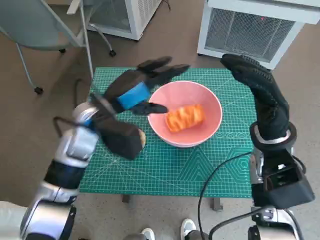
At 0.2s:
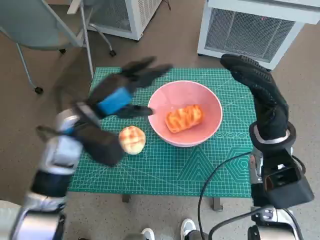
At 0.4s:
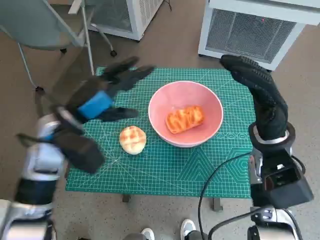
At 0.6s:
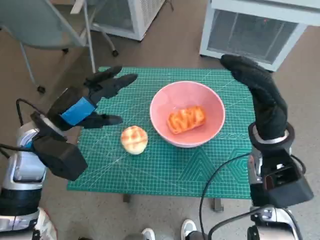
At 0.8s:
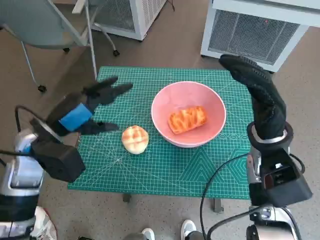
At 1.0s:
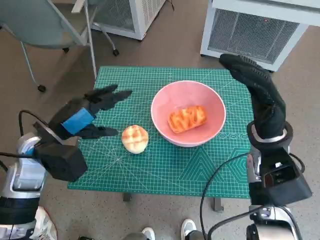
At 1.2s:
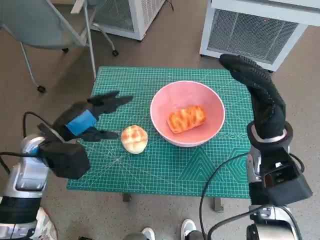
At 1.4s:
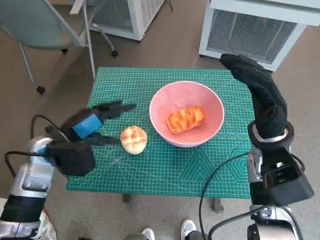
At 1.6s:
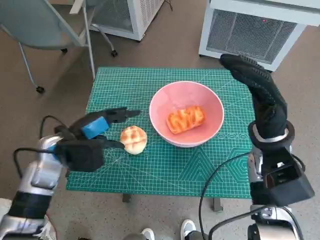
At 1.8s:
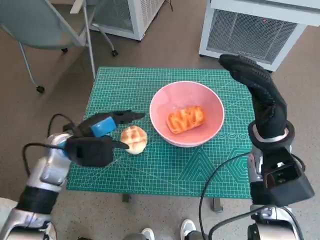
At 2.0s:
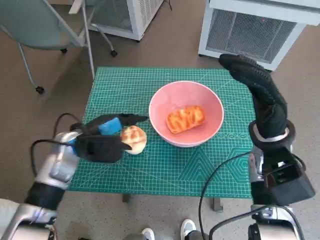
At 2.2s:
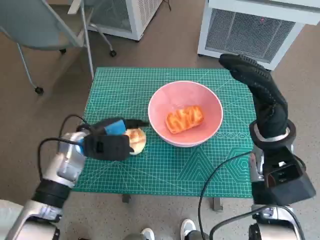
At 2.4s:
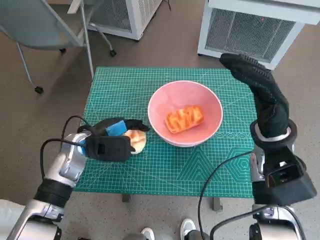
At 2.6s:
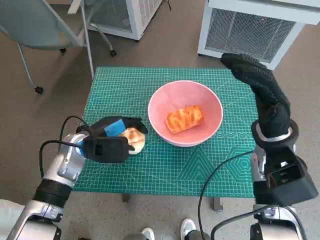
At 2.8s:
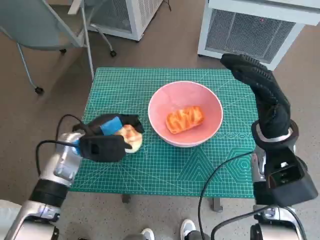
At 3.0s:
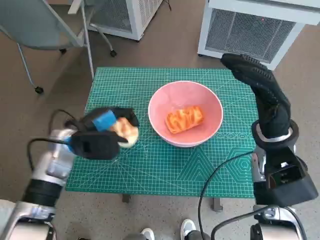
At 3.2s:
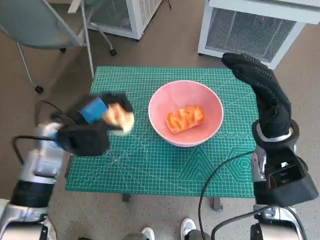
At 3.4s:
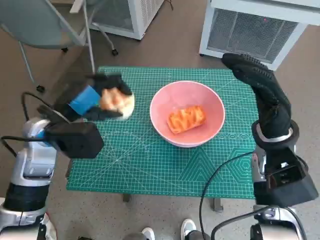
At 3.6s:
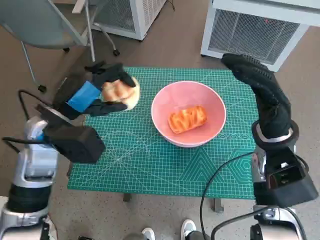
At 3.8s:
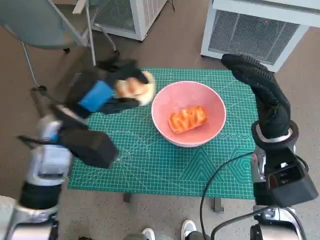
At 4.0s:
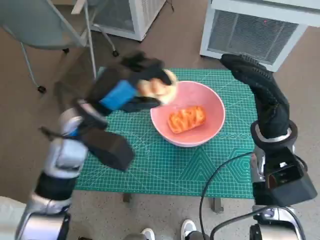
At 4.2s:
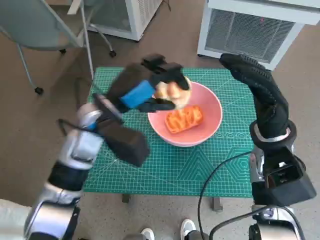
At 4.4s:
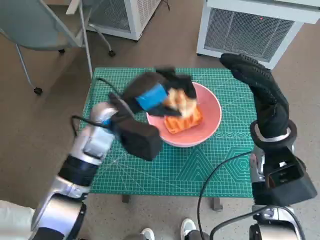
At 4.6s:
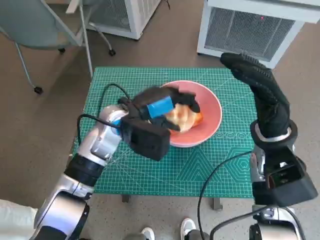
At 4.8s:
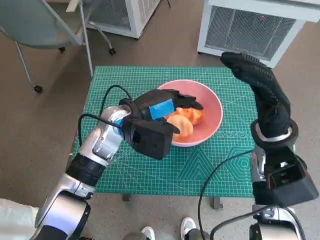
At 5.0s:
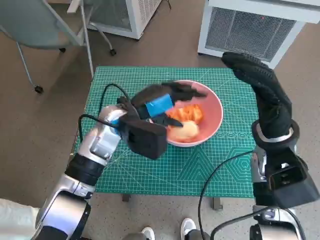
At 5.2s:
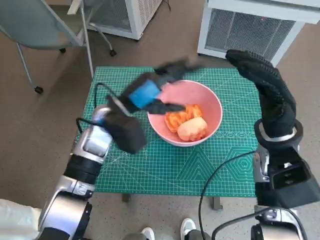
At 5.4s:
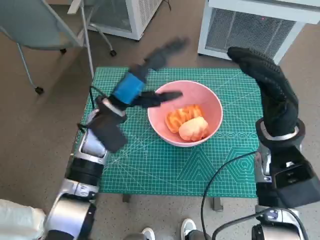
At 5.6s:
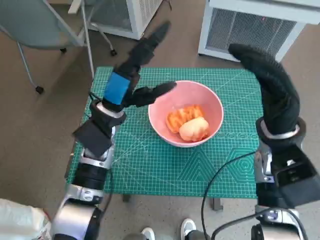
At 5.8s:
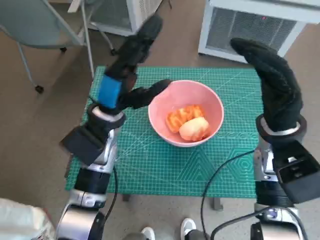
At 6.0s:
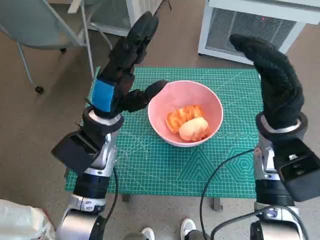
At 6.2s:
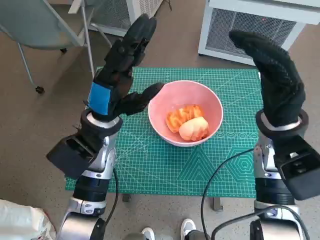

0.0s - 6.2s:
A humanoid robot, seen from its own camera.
Task of the whole recording: Push the bowl to the center of the table and put the bread into the bowl.
Step, 0.0s - 2.6s: Grasp the round bread with left hand.
Step, 2.8s - 4.8s: Place the round bread in pink bowl with left hand.
0.0s - 1.6s: The left hand is displaced to the left and downward by approximately 10 cm.
1.6s - 3.2s: There are only small adjustments of the hands.
3.2s - 4.6s: The left hand is displaced to the right by about 10 cm.

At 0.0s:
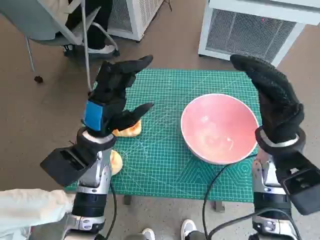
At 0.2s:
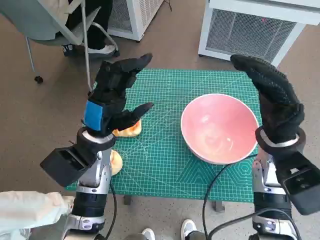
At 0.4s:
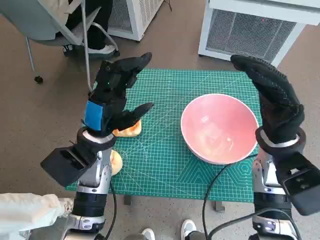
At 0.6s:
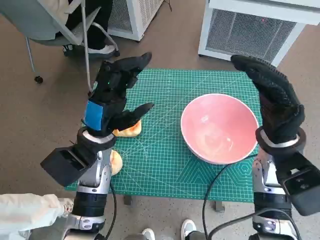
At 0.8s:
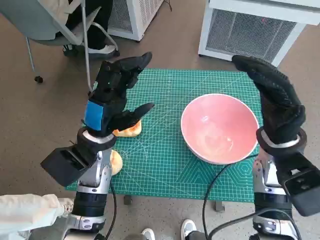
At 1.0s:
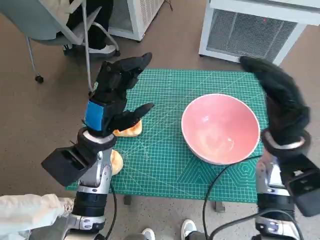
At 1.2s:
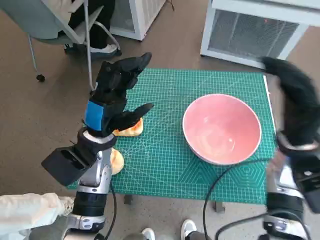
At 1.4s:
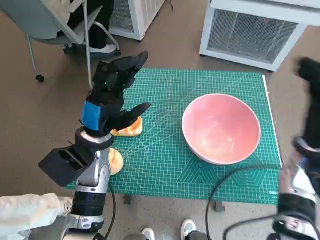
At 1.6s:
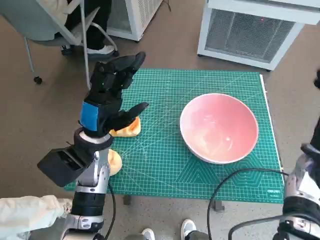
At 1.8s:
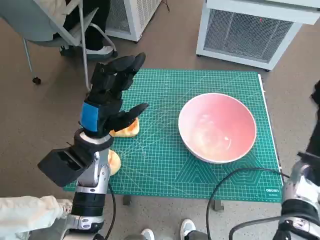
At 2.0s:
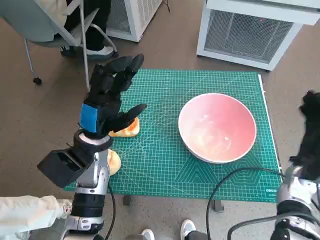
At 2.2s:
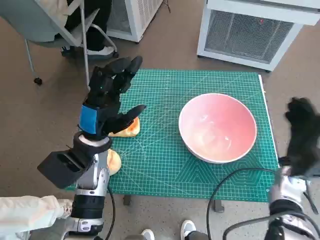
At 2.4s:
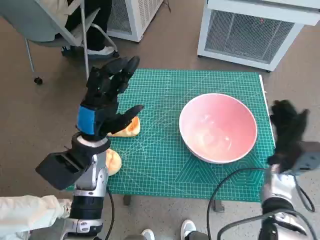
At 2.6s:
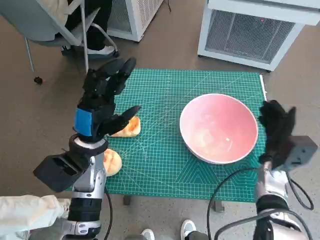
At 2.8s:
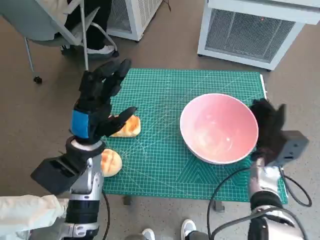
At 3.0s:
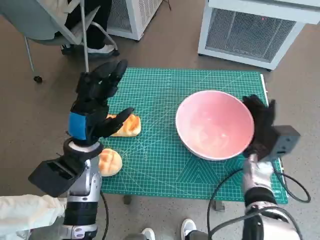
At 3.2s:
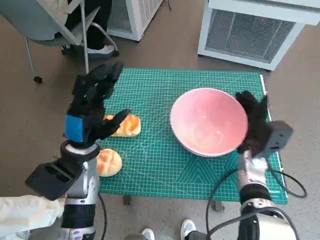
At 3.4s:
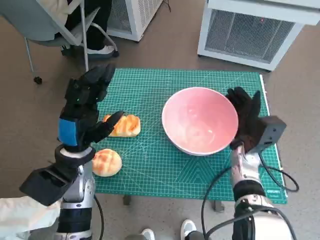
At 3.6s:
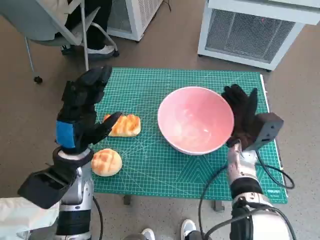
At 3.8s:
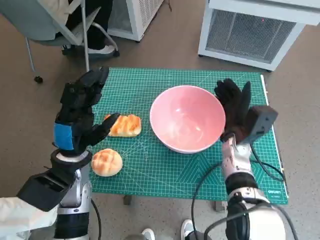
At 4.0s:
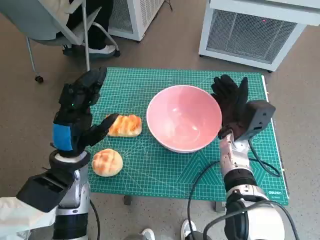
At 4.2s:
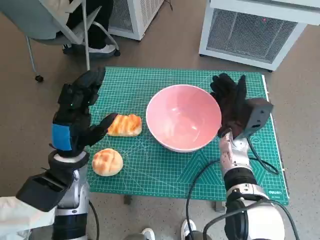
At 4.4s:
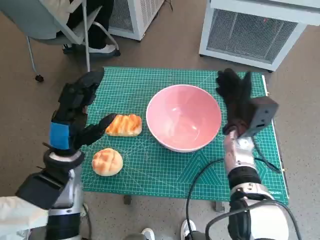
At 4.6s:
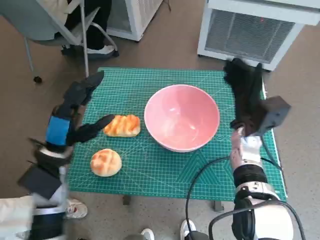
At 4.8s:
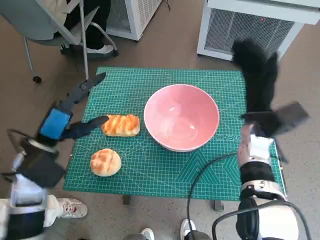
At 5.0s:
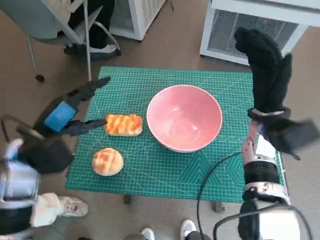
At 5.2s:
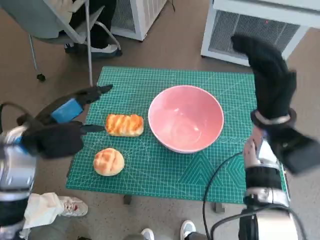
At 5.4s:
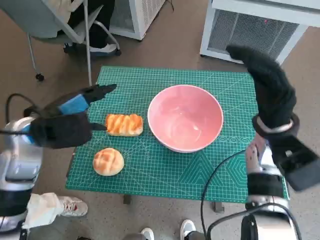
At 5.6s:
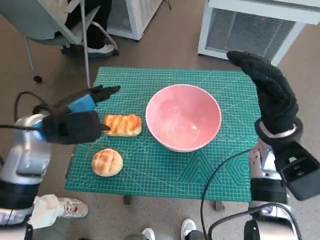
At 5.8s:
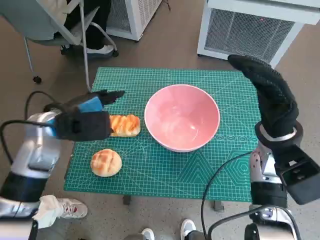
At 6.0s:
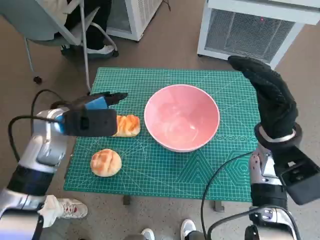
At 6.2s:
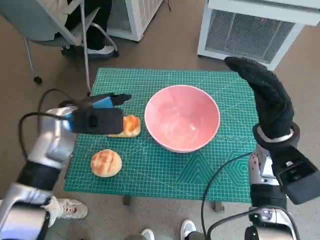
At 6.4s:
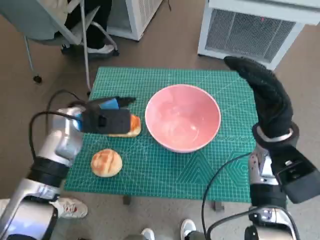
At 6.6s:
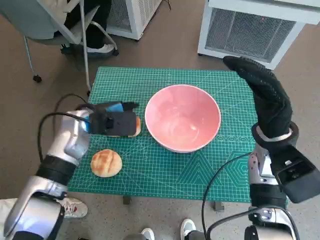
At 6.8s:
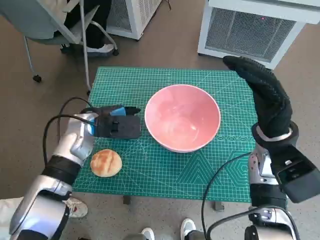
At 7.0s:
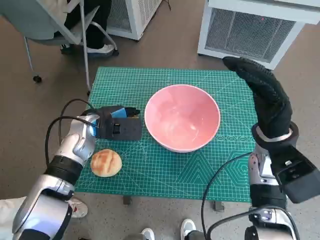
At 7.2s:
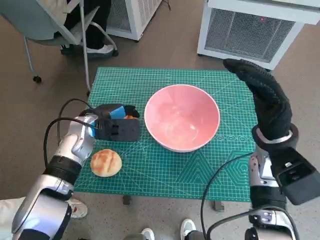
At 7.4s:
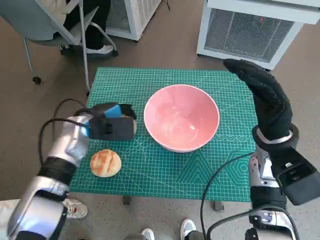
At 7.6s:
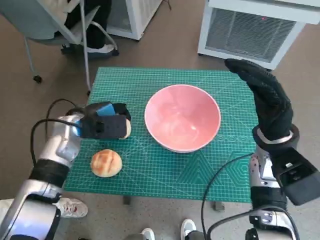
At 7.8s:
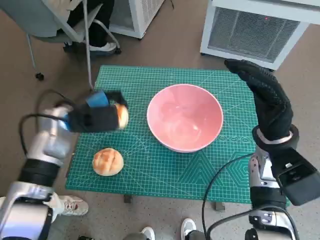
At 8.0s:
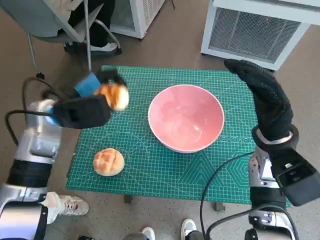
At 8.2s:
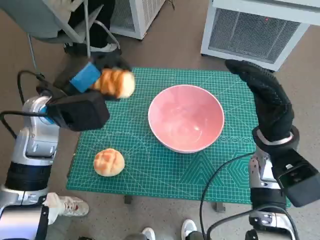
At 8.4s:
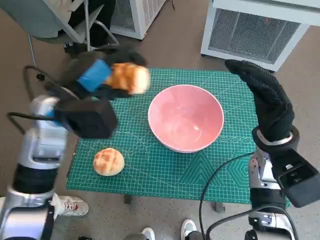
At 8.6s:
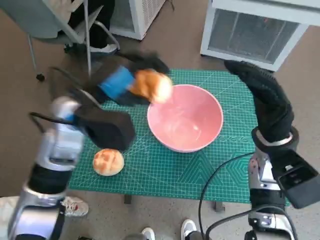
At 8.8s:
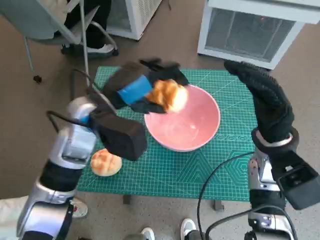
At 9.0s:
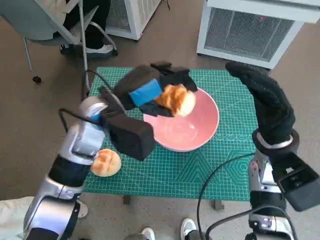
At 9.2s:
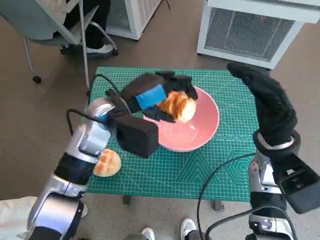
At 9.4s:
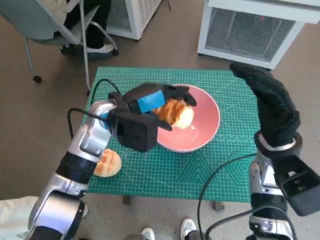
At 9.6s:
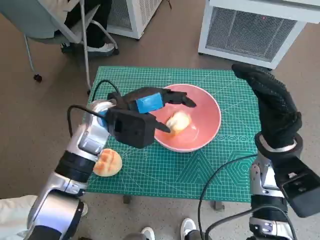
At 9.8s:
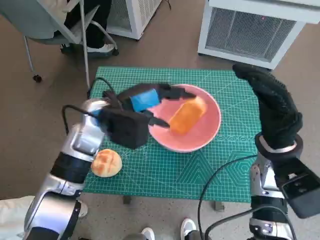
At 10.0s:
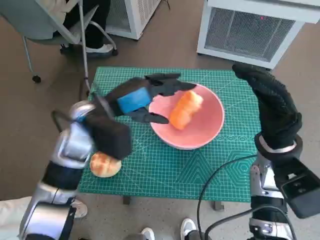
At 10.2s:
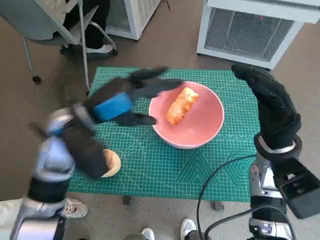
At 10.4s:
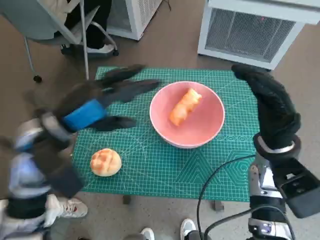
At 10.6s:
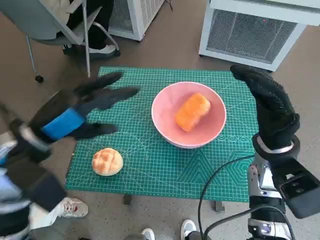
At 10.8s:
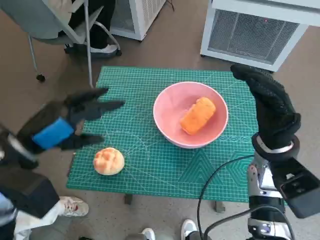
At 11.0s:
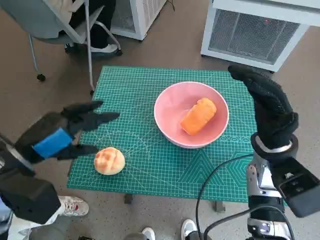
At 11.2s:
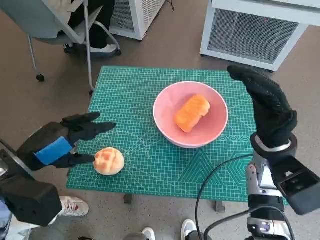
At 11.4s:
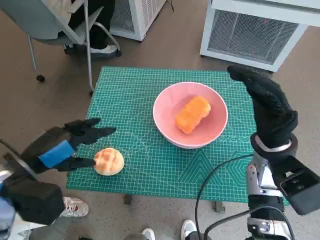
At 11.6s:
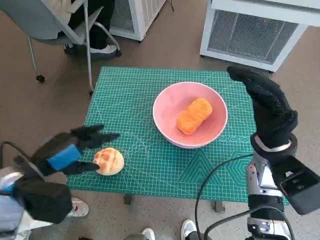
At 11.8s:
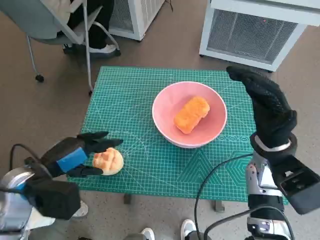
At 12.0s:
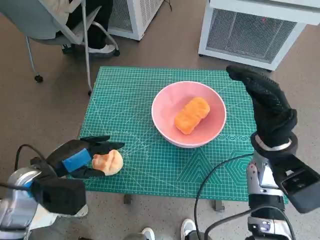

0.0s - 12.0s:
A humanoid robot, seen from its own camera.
Task of the whole recording: Push the bowl to the center of the table and put the bread into the bowl.
Step, 0.0s - 4.4s: Move the pink bowl to the center of table with right hand.
Step, 4.6s - 7.4s: Grasp the long bread with left hand.
Step, 7.6s - 9.8s: Place the long bread in pink bowl with left hand.
1.6s - 3.0s: The right hand heads downward and to the left, covering roughly 10 cm.
3.0s - 4.4s: The right hand moves to the left, approximately 5 cm.
4.4s - 6.0s: The right hand heads upward, covering about 10 cm. The left hand travels forward and upward by roughly 10 cm.
6.0s - 7.6s: The left hand shifts approximately 5 cm downward.
7.6s - 9.0s: The left hand goes approximately 10 cm upward and to the right.
9.0s - 10.4s: The left hand heads to the left and backward, covering roughly 10 cm.
10.4s - 12.0s: The left hand shifts about 10 cm downward and to the left.

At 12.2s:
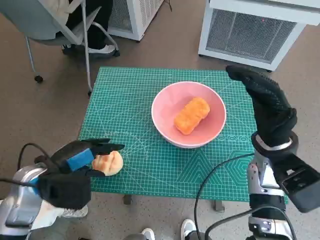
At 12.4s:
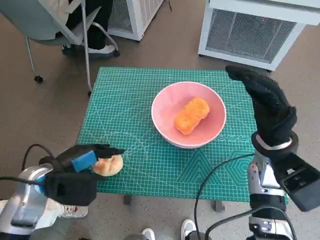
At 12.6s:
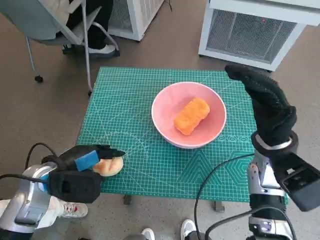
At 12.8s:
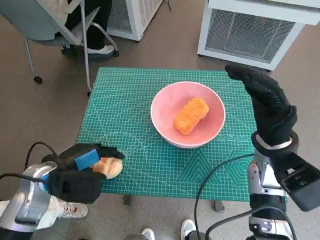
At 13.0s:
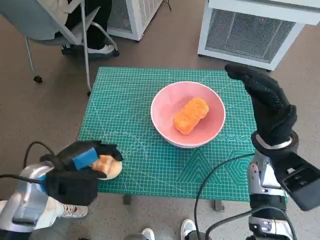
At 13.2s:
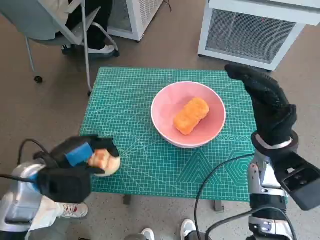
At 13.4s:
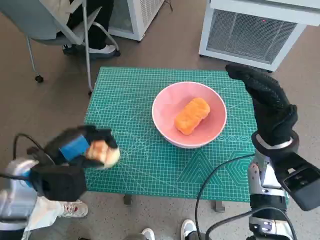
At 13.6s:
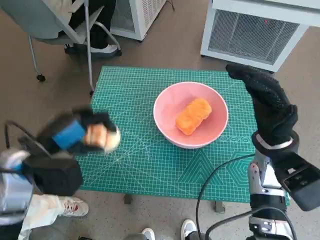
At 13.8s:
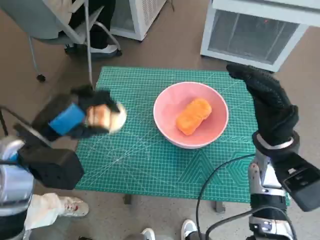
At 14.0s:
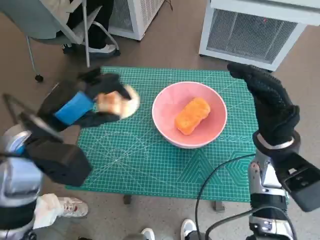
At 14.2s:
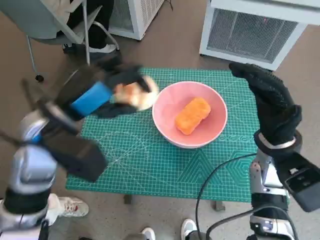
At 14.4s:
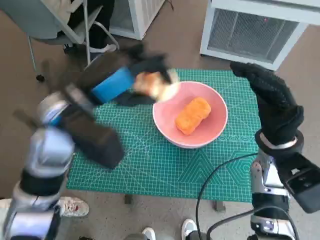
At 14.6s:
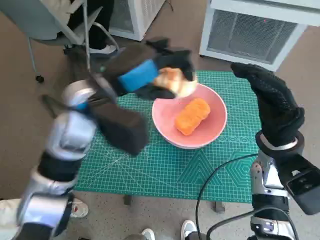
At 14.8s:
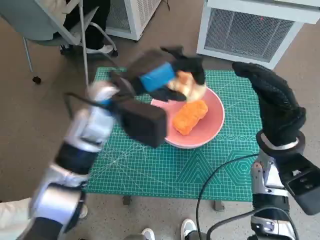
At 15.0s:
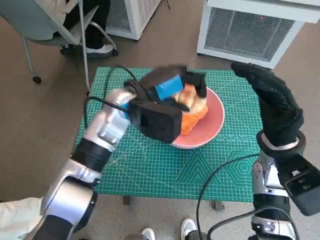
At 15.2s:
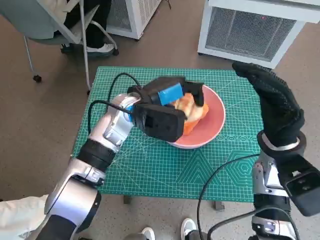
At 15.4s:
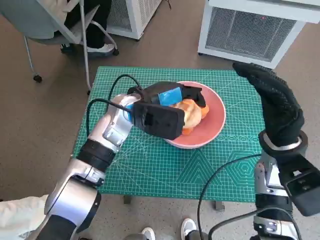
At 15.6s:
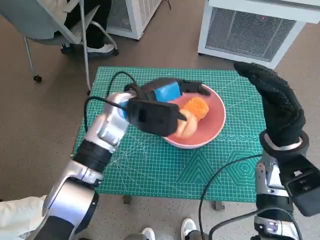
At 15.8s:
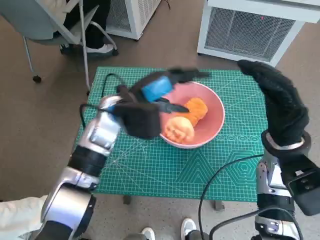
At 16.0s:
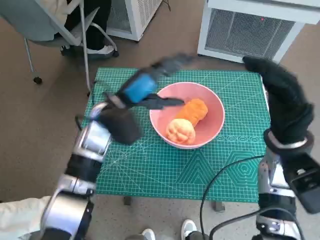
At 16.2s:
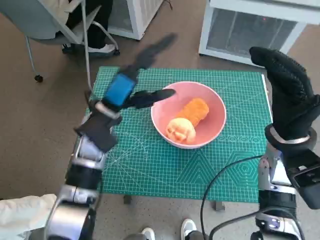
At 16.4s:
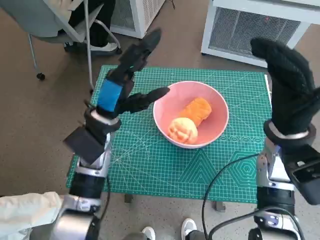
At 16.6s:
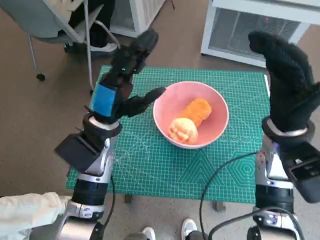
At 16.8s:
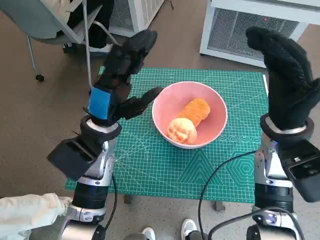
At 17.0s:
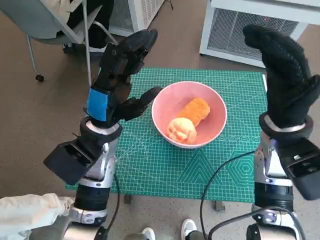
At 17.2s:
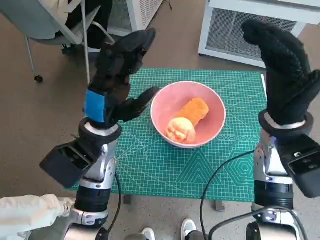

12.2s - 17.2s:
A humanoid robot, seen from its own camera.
Task of the whole recording: Push the bowl to the center of the table and put the bread into the bowl.
Step, 13.2s - 15.6s: Place the round bread in pink bowl with left hand.
12.2s - 13.8s: The left hand heads upward, covering roughly 10 cm.
13.8s - 15.6s: The left hand shifts roughly 20 cm to the right and forward.
15.6s - 17.2s: The left hand goes some 5 cm backward.
